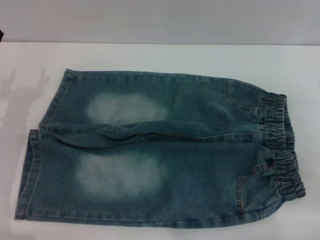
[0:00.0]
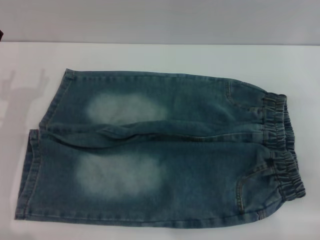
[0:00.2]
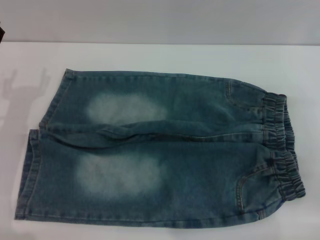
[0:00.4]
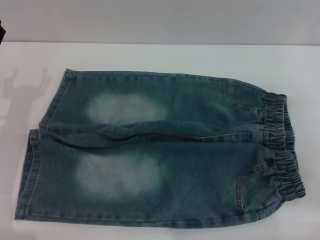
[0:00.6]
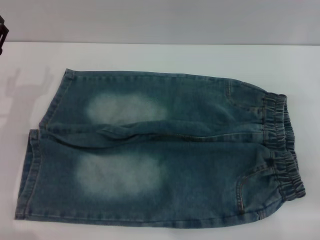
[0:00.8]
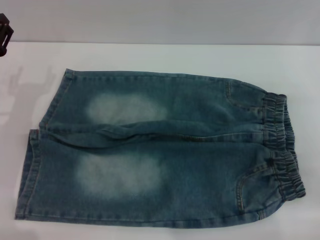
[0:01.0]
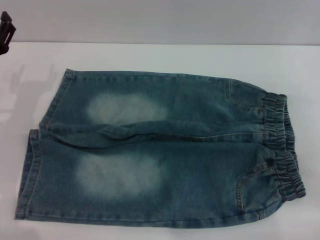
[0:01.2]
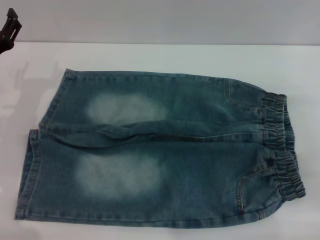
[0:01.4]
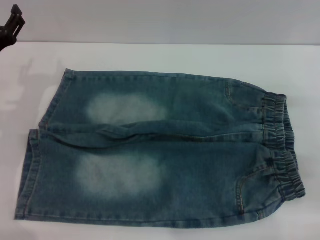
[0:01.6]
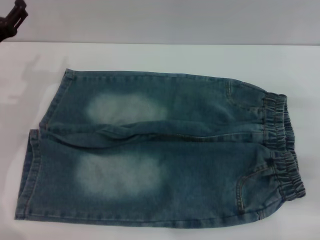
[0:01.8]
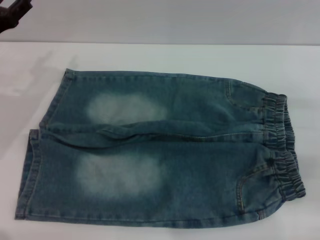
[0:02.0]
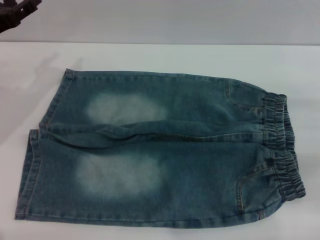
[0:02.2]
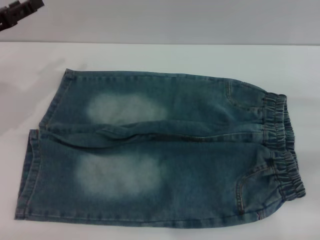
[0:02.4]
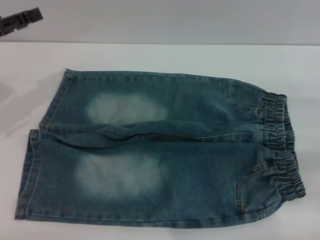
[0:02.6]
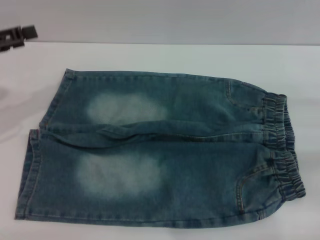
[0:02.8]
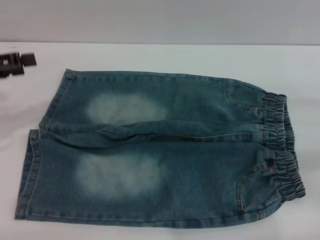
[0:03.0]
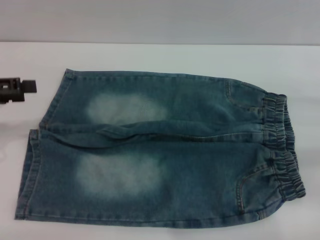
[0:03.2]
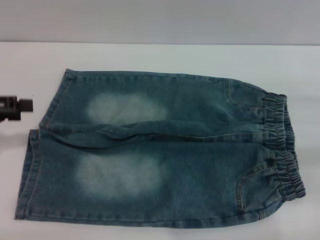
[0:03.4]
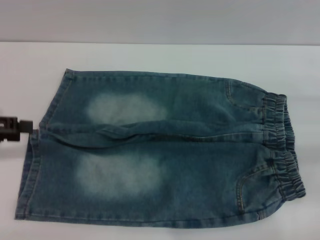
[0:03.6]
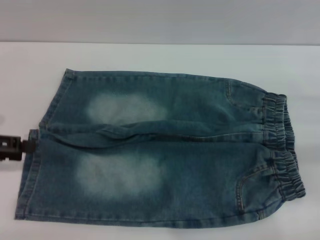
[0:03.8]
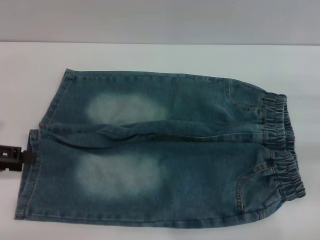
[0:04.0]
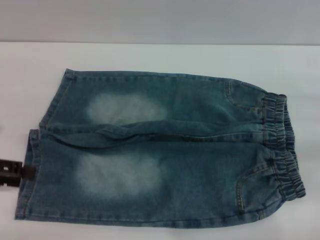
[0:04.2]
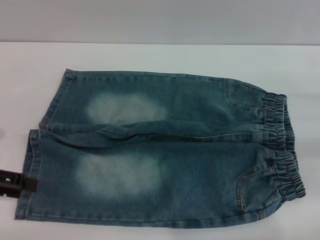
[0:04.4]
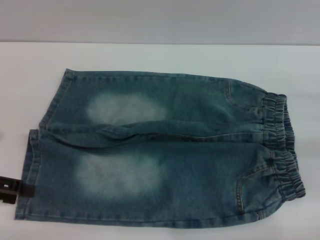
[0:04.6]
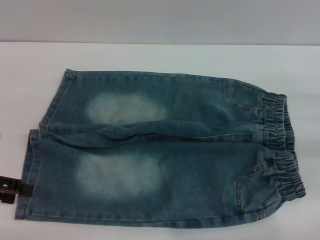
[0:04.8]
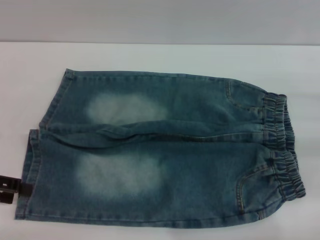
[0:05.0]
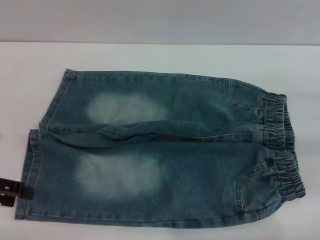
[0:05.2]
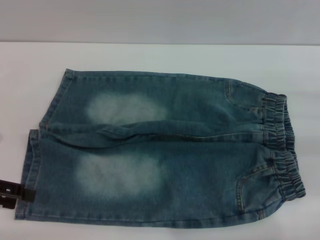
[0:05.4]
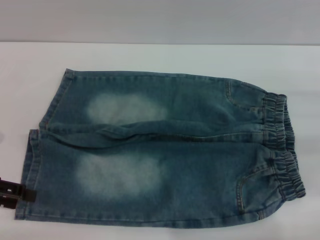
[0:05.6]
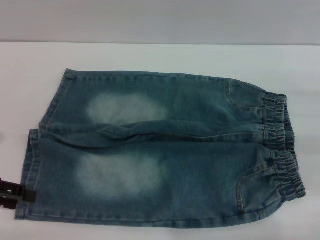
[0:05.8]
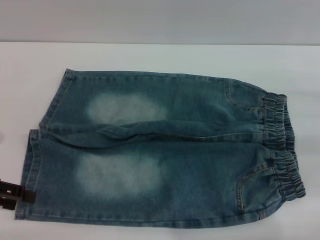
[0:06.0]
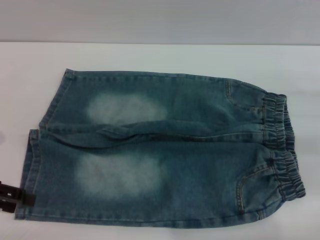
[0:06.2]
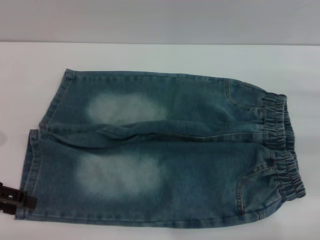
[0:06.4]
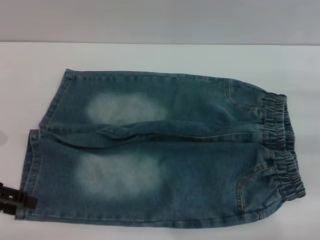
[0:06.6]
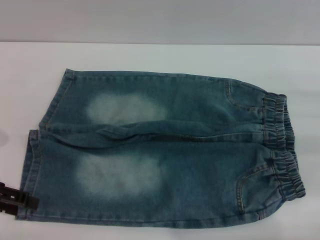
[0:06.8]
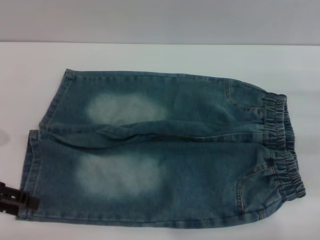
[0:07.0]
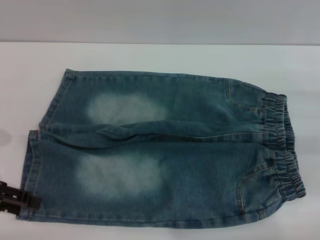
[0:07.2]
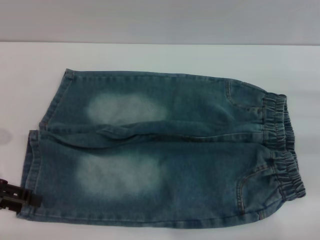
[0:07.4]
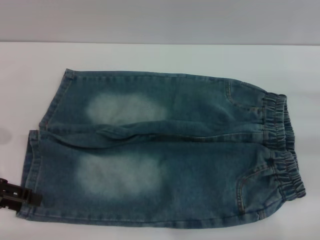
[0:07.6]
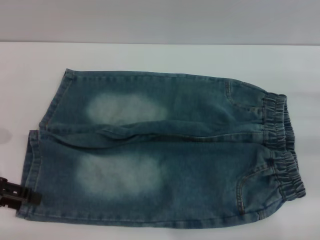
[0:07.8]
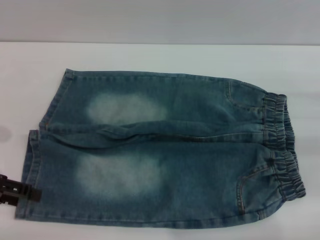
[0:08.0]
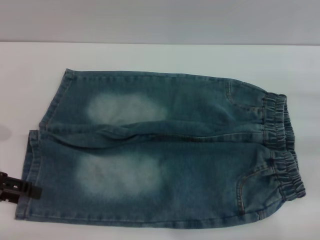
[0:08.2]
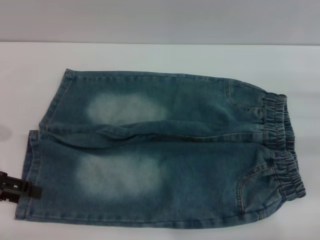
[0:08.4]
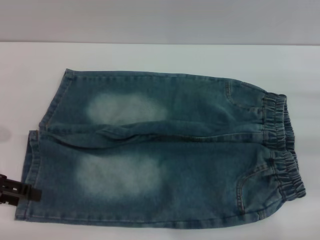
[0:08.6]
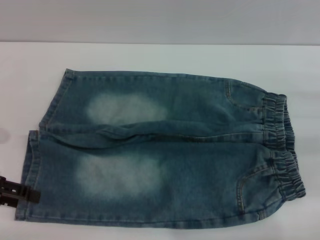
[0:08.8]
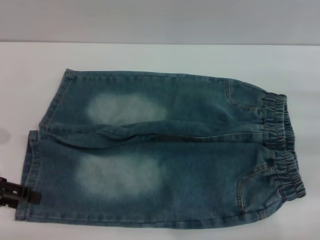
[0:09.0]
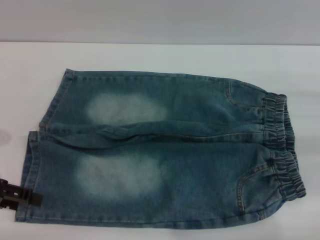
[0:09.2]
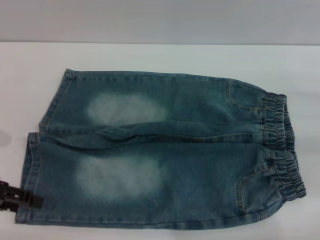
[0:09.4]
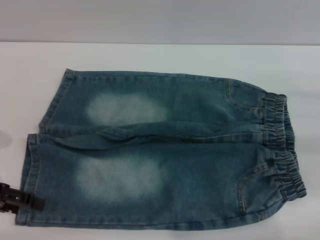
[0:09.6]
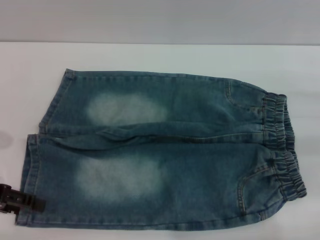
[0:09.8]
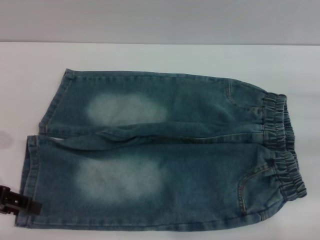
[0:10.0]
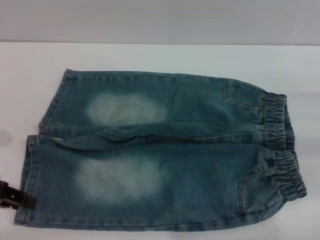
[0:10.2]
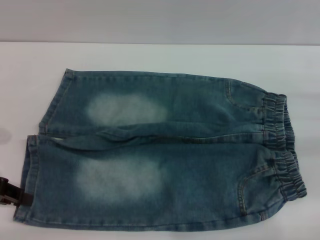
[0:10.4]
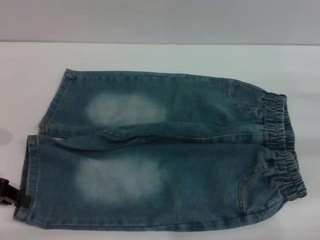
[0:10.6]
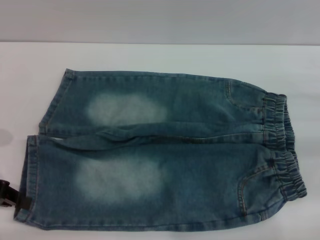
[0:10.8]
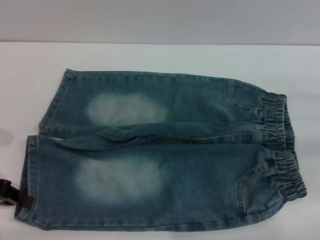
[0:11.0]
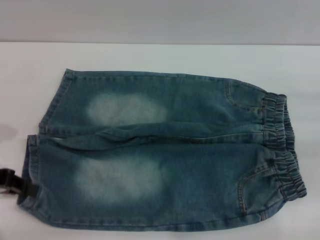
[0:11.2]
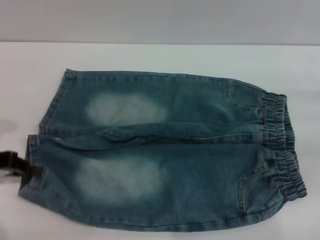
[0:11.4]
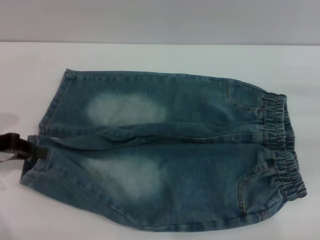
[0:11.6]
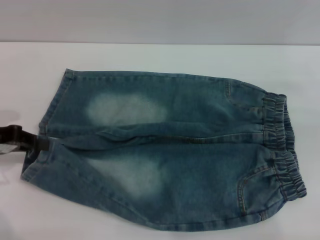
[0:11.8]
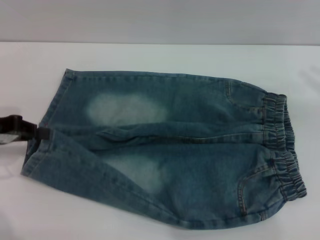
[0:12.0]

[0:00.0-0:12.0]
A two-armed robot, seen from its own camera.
0:01.6 to 0:03.0: The left gripper is displaced upward and to the left by some 10 cm.
0:03.0 to 0:04.4: The left gripper moves backward, about 5 cm.
0:04.4 to 0:06.0: There are only small adjustments of the grippers.
0:06.0 to 0:09.0: Neither gripper changes place.
0:09.0 to 0:10.4: The left gripper closes.
0:10.4 to 0:12.0: The right gripper moves upward, about 10 cm; the left gripper closes up.

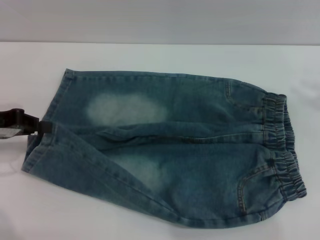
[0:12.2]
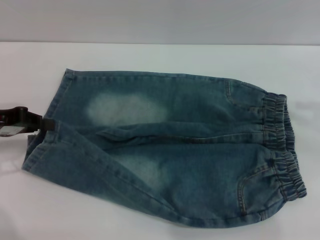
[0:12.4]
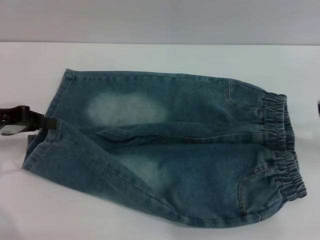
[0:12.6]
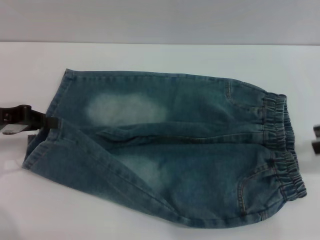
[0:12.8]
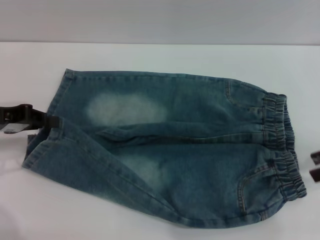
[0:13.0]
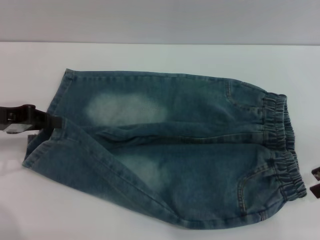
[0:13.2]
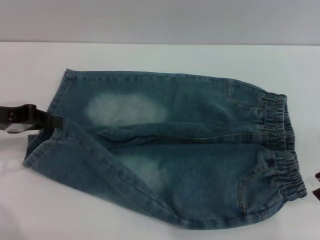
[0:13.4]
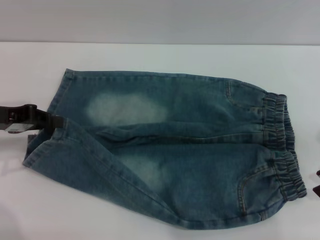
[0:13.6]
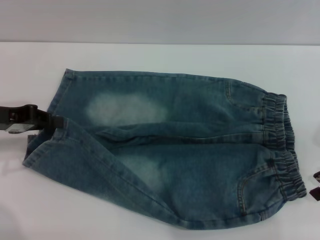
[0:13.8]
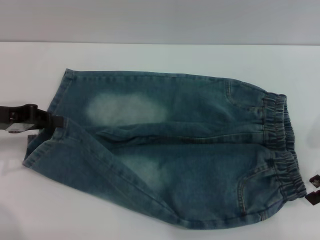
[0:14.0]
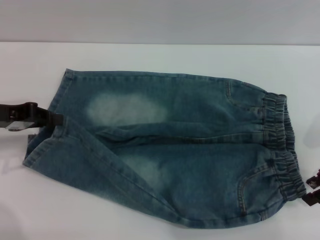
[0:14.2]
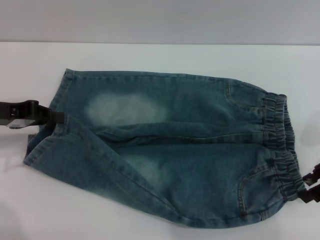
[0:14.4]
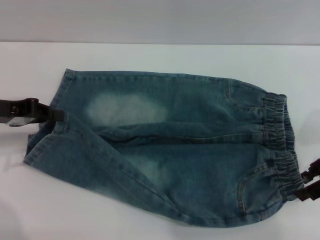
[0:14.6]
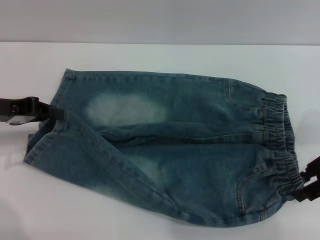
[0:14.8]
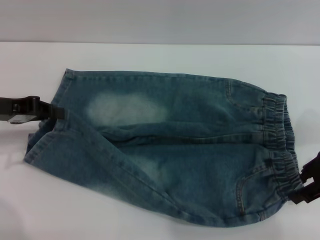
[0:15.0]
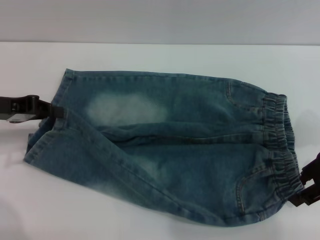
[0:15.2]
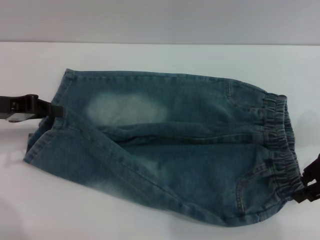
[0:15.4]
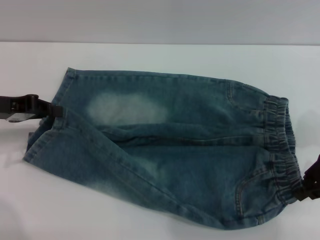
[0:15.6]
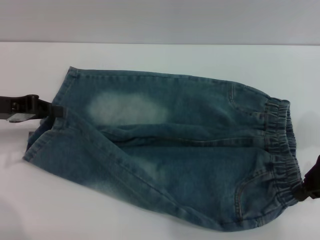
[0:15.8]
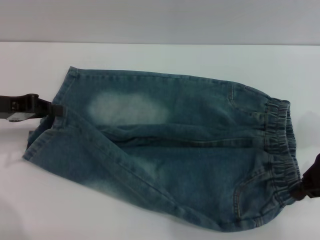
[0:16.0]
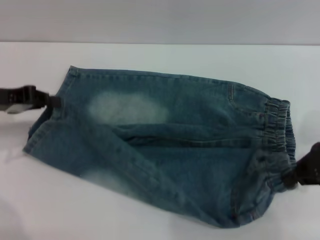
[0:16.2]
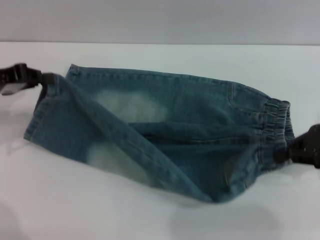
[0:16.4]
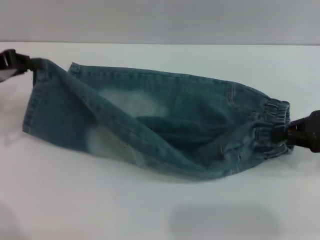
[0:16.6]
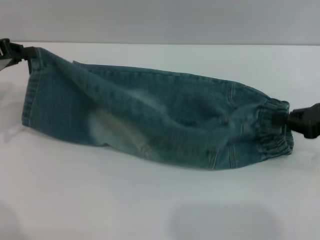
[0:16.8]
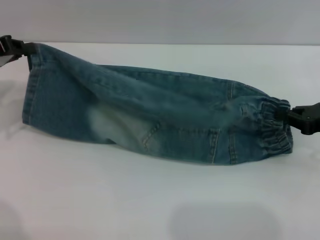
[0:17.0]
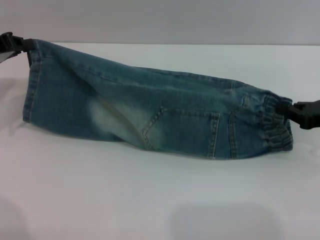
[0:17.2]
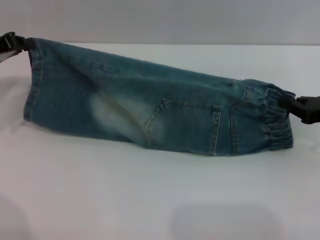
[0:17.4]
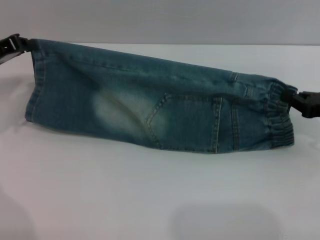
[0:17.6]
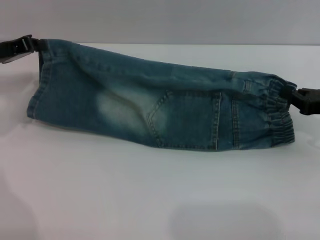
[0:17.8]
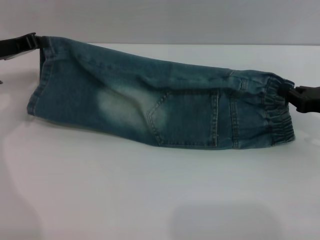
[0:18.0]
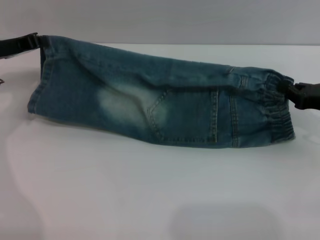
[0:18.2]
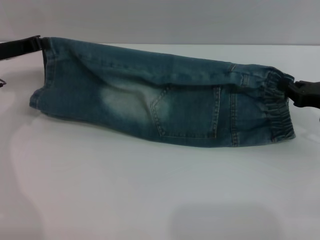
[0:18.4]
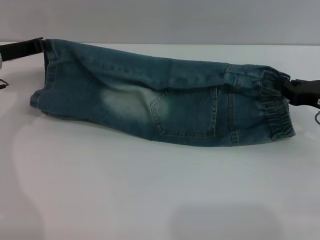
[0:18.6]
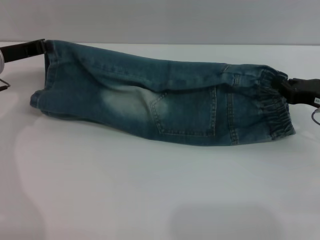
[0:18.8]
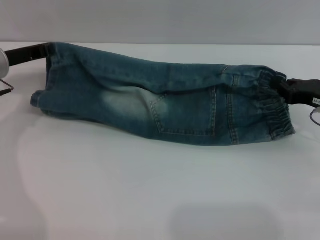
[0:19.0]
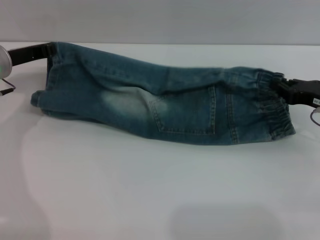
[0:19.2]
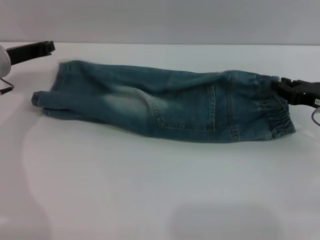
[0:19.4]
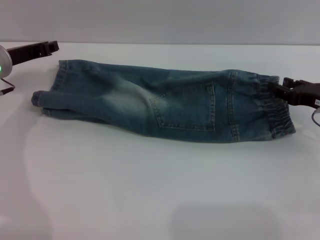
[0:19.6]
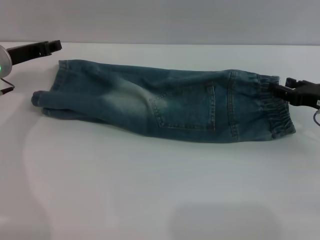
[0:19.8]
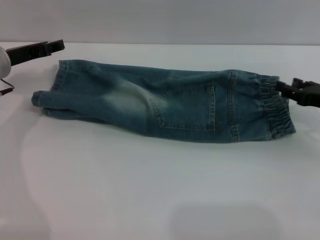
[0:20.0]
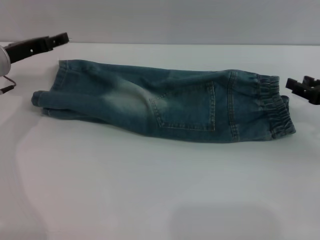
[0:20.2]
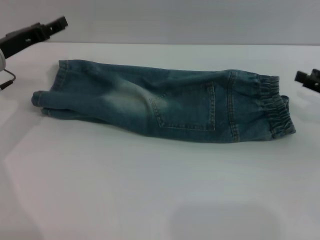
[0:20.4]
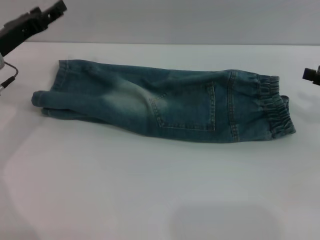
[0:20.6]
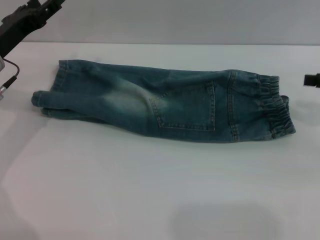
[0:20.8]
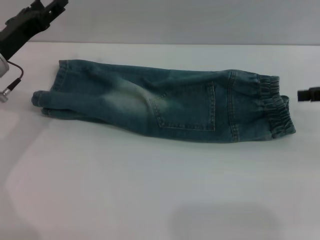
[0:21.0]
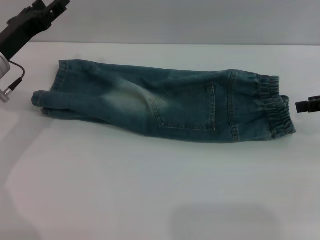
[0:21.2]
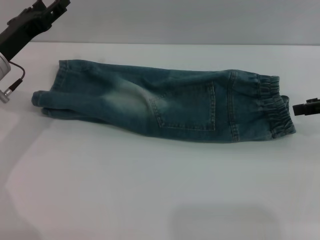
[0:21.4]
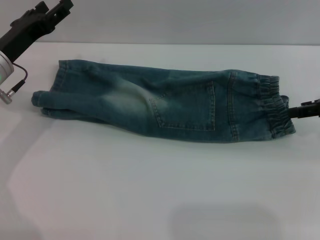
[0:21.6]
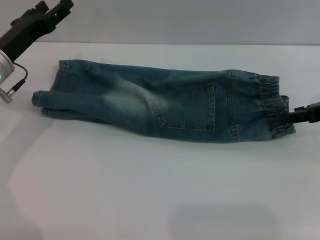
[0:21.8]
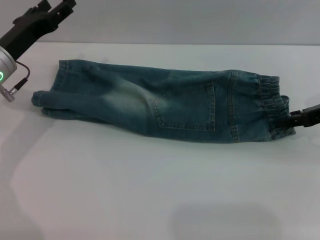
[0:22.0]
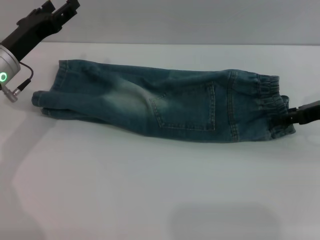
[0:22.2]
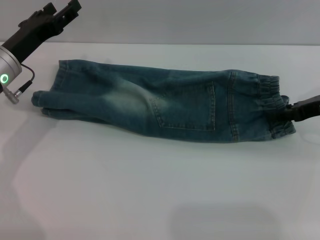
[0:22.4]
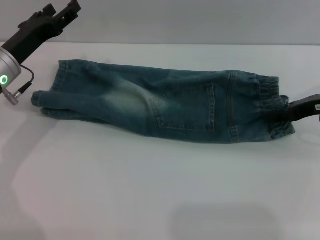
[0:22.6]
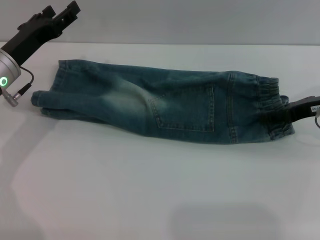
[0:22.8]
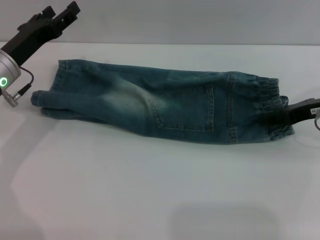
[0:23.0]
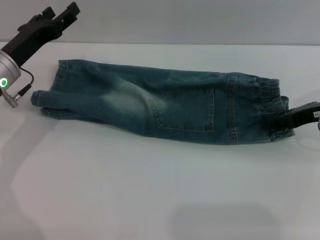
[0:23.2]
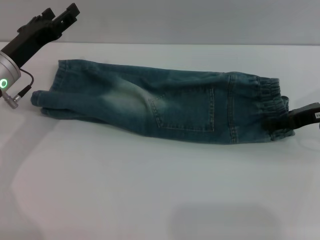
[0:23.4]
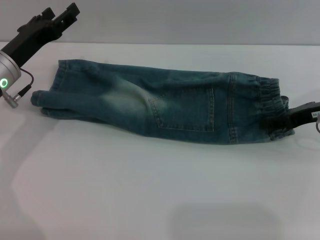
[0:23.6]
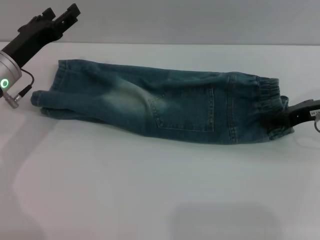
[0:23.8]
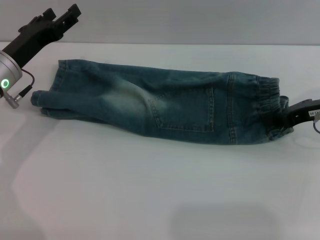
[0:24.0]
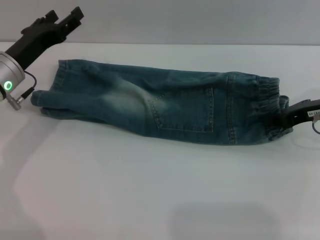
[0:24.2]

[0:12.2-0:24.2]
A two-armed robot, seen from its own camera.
Step, 0:12.2 to 0:19.8: Fold the bottom of the pants upward with both grippers.
0:12.2 to 0:13.8: The right gripper shifts some 5 cm to the left.
0:13.8 to 0:15.2: There are only small adjustments of the grippers.
0:15.2 to 0:16.6: The right gripper closes its fingers.
0:16.6 to 0:18.2: The left gripper shifts by roughly 5 cm. The right gripper heads downward, covering about 5 cm.
0:18.2 to 0:19.8: The right gripper opens.
0:19.8 to 0:21.2: The right gripper heads upward, covering roughly 10 cm, while the left gripper opens.
0:21.2 to 0:22.6: The right gripper shifts about 5 cm to the left.
0:22.6 to 0:24.2: The right gripper closes.
